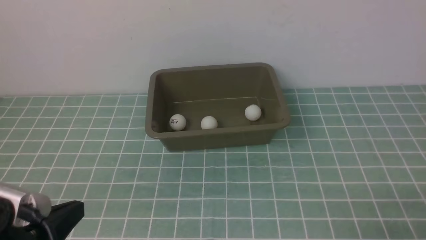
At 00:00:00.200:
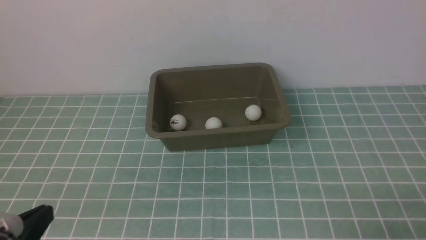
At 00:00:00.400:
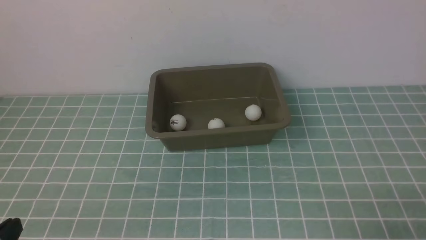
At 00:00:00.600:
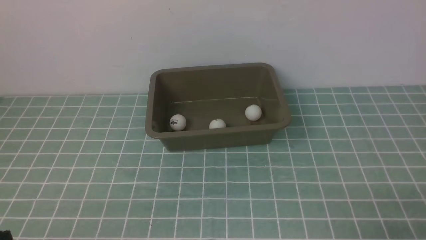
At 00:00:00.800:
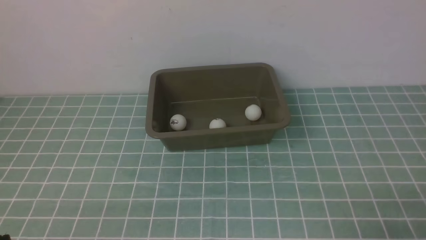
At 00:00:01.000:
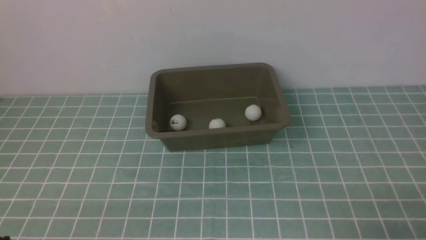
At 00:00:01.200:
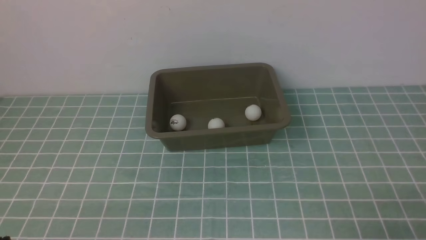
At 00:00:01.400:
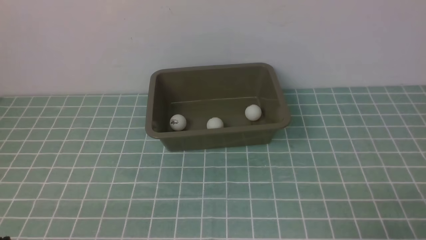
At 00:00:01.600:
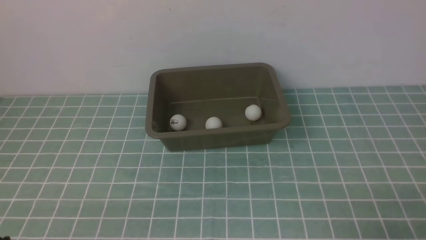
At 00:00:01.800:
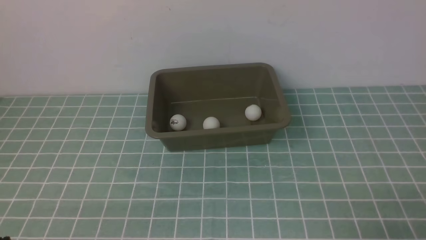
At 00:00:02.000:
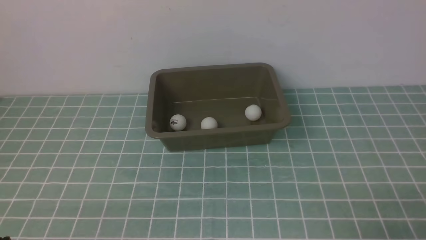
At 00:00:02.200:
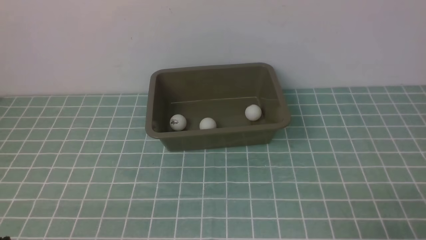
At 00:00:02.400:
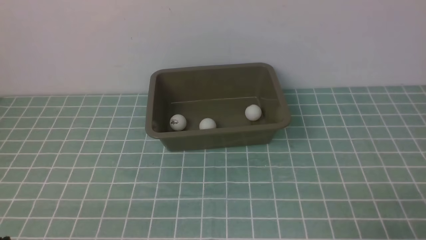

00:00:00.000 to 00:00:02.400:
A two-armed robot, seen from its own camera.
00:00:00.000 to 00:00:01.200: The left gripper heads downward, covering roughly 5 cm.
00:00:01.200 to 00:00:02.400: Both grippers stay about where they are.
